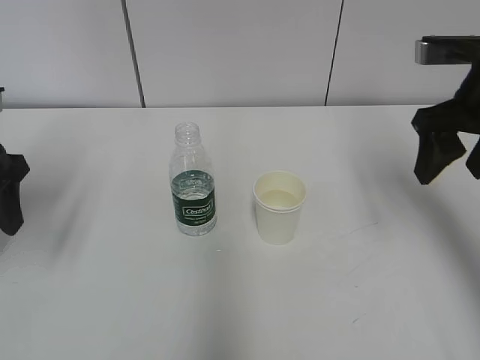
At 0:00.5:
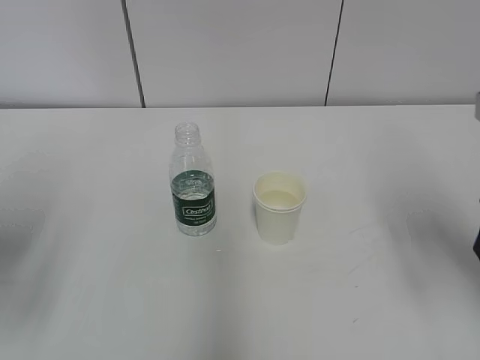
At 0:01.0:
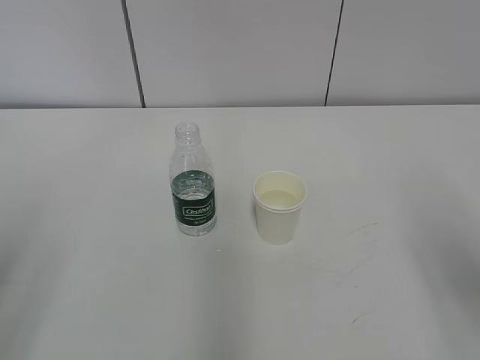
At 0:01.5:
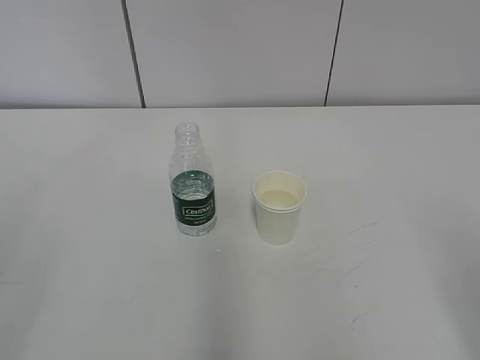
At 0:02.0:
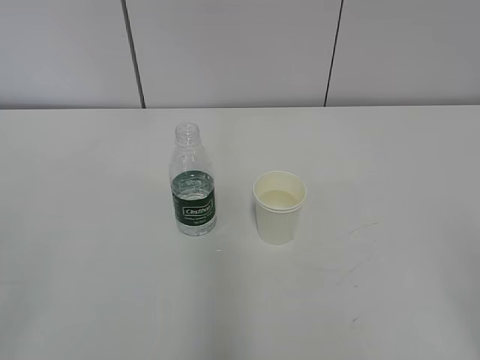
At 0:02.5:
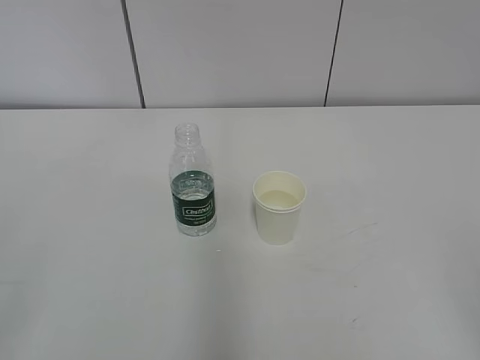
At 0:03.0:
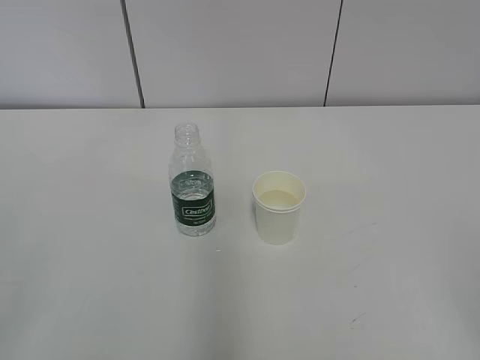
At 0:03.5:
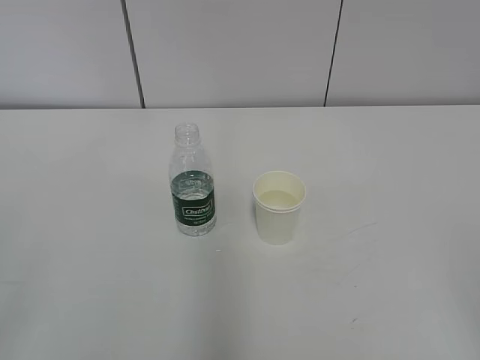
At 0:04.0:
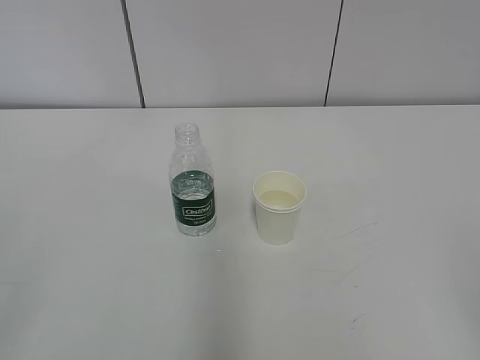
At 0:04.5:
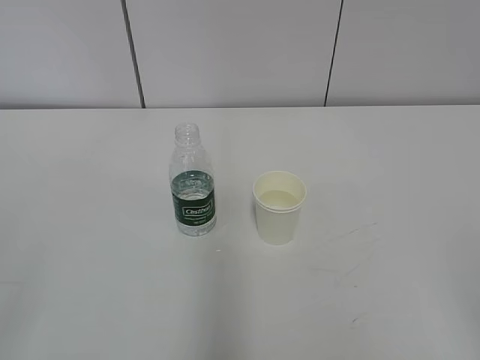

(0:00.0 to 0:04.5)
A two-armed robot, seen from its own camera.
0:00.0 - 0:02.0: Both grippers move backward, some 30 cm.

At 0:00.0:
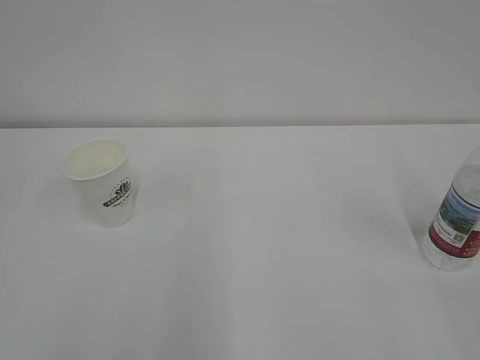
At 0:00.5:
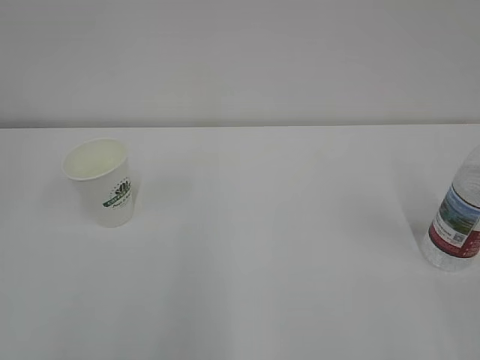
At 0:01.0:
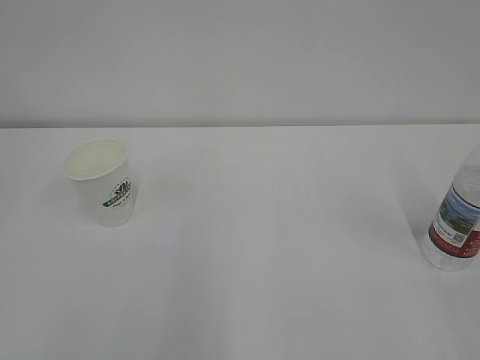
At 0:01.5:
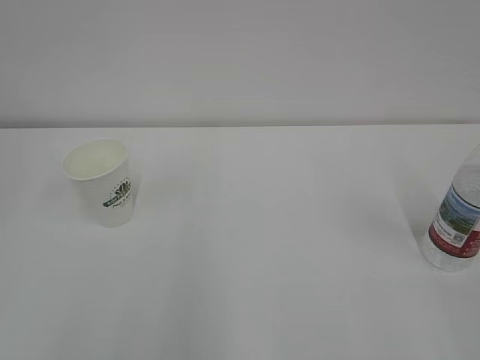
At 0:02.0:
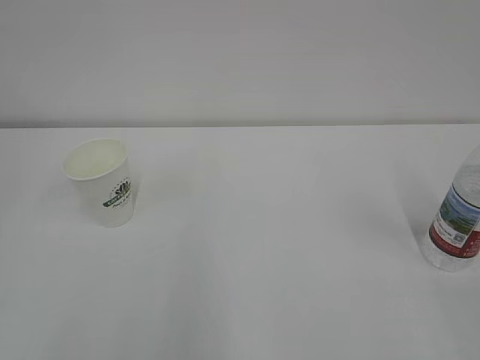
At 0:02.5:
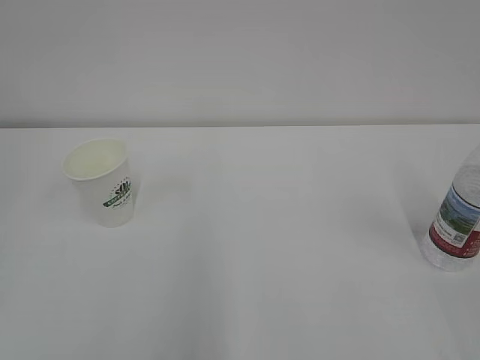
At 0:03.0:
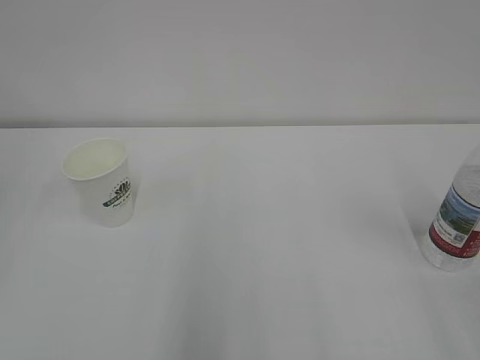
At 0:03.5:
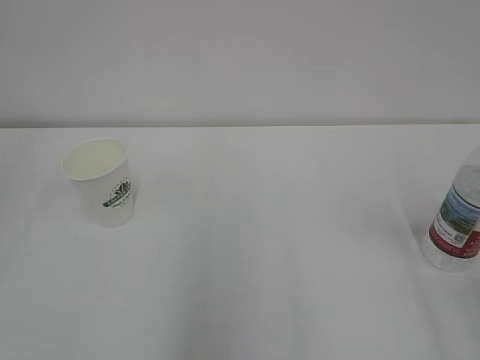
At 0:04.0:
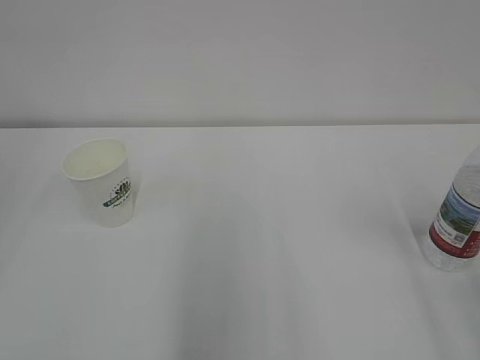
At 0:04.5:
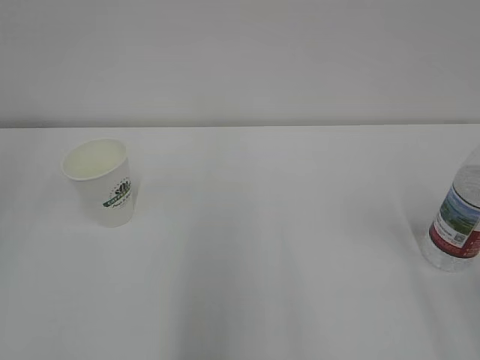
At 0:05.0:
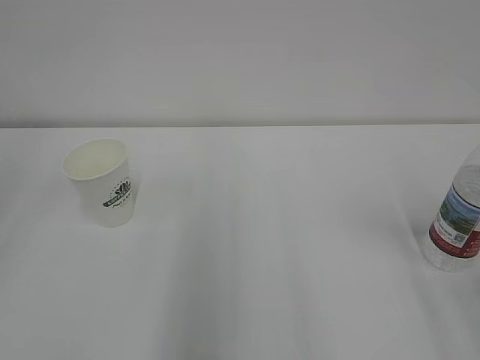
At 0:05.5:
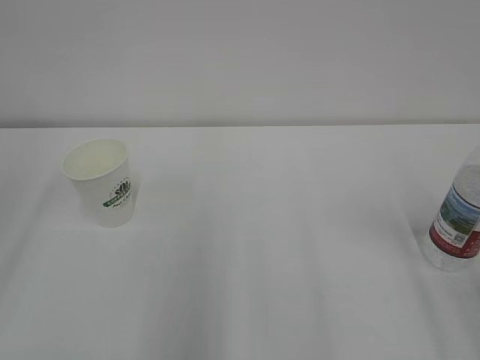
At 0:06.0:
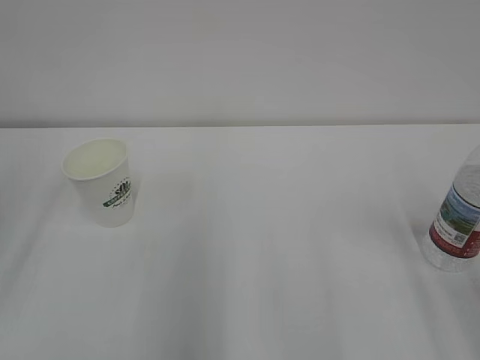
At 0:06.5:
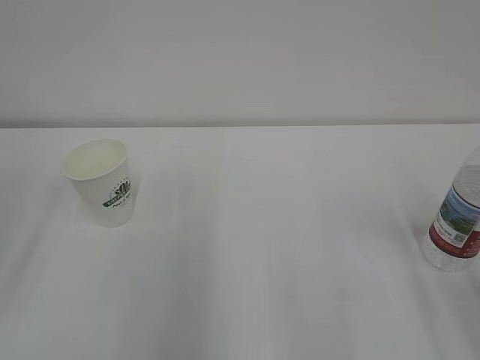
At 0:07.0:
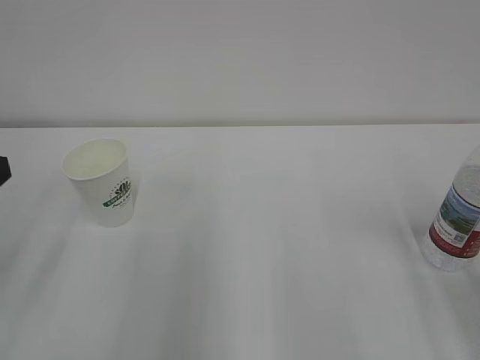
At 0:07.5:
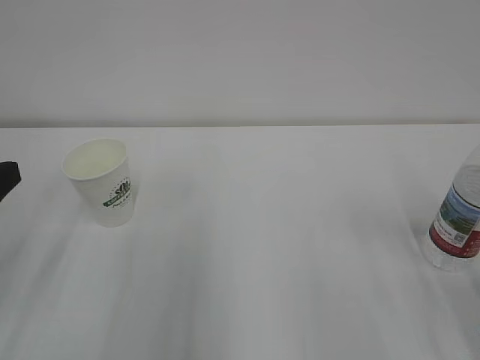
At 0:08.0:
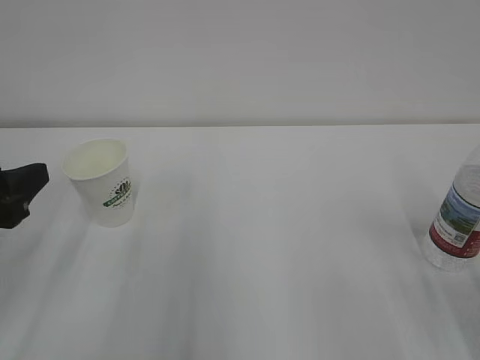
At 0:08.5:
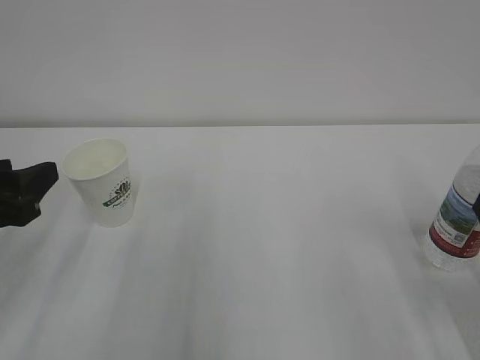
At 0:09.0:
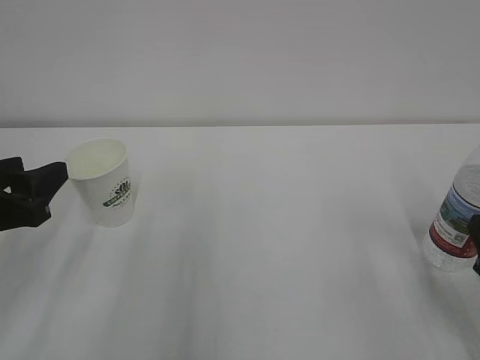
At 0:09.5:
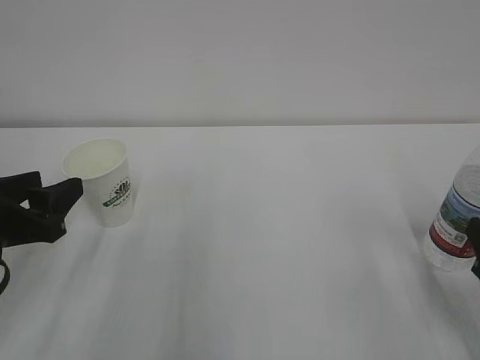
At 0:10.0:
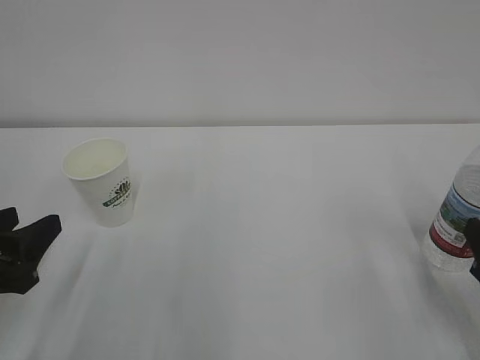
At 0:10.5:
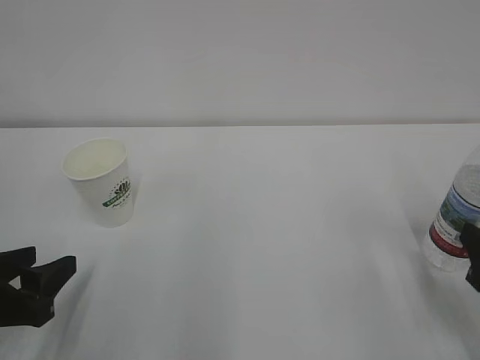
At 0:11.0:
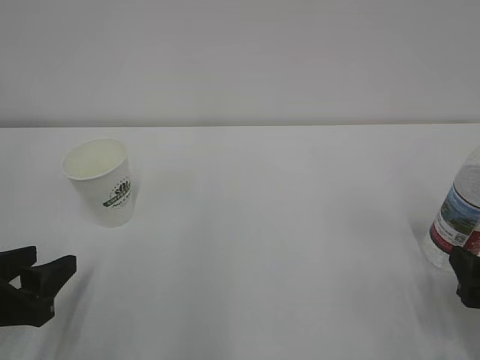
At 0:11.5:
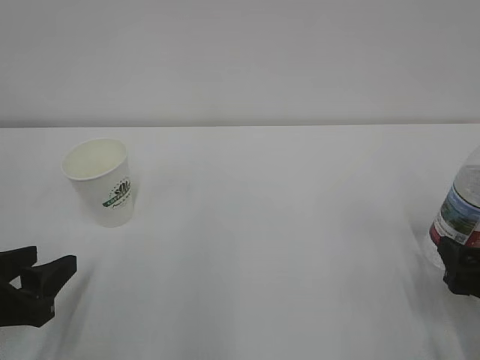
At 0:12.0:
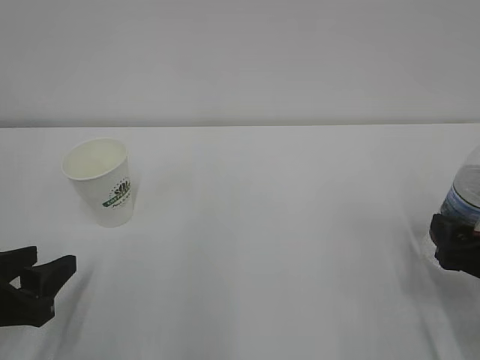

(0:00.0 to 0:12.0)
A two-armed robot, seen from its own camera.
0:06.0 - 0:08.0: The left gripper travels downward by about 10 cm.
0:08.0 - 0:10.0: The left gripper shifts about 5 cm downward.
0:10.0 - 0:12.0: The right gripper moves roughly 5 cm, and opens.

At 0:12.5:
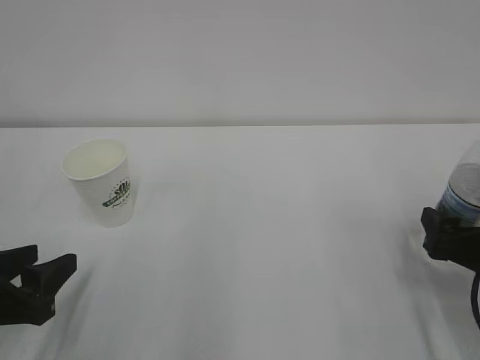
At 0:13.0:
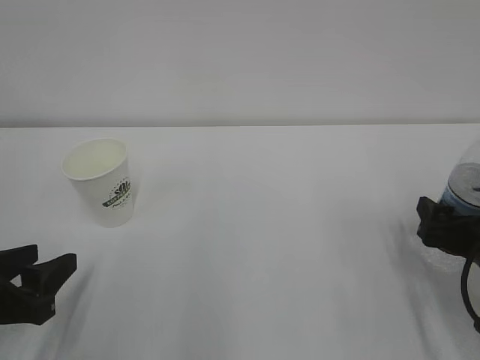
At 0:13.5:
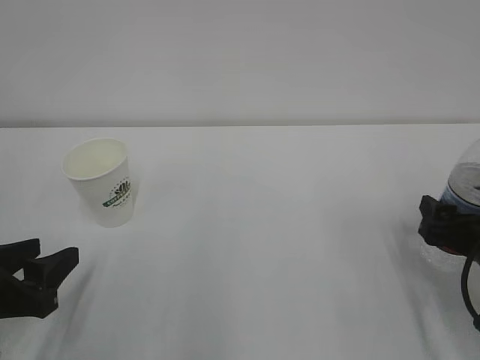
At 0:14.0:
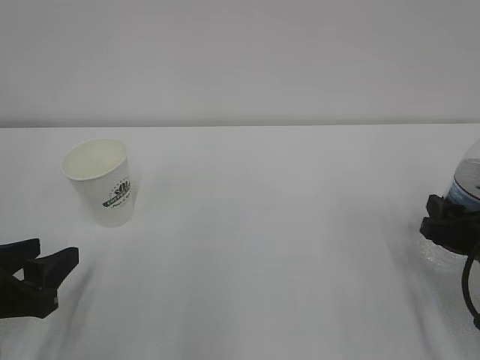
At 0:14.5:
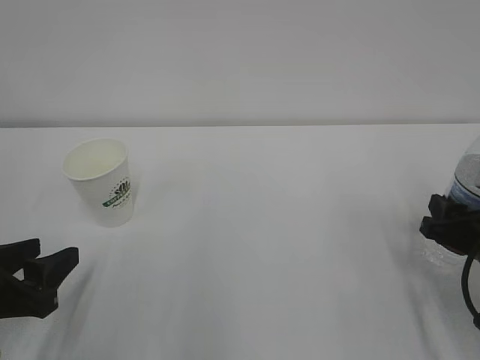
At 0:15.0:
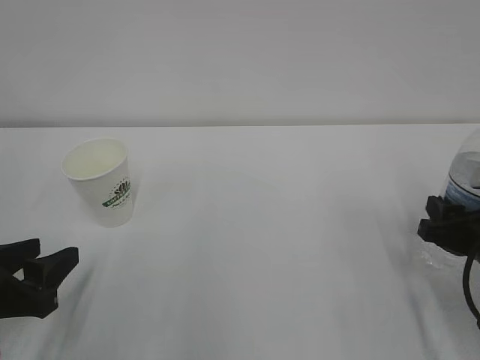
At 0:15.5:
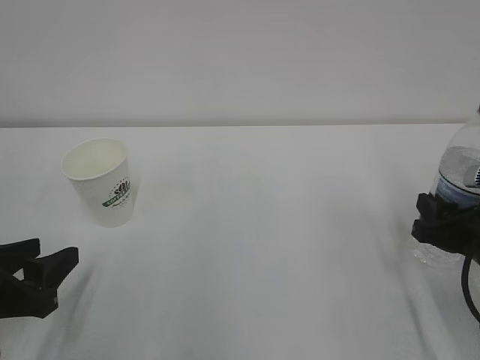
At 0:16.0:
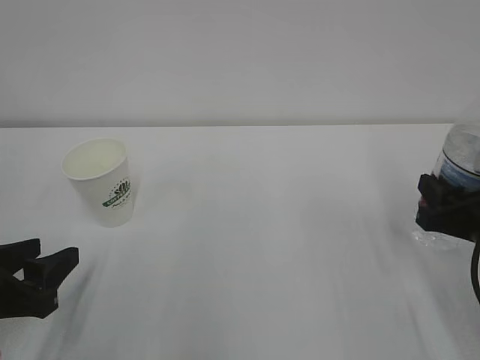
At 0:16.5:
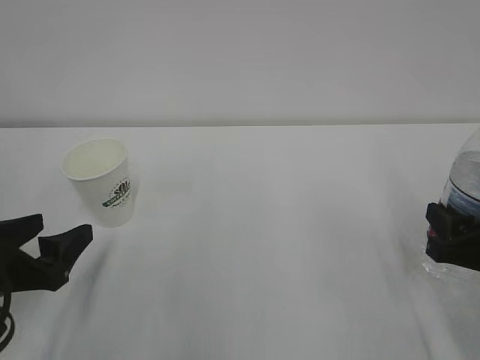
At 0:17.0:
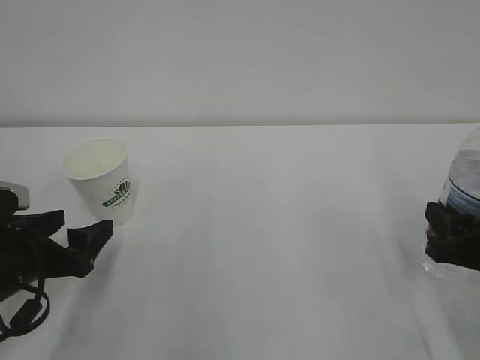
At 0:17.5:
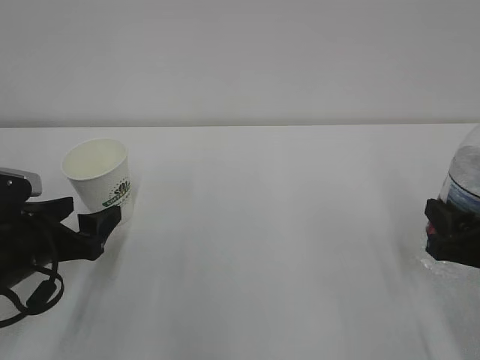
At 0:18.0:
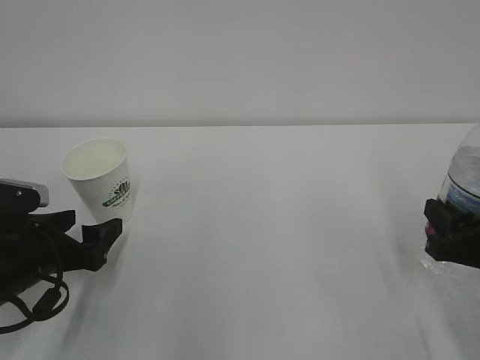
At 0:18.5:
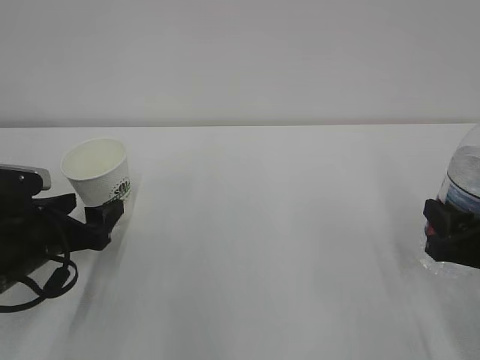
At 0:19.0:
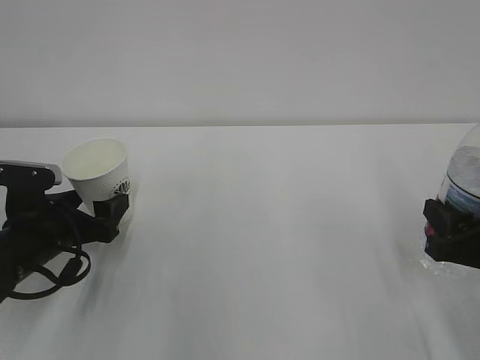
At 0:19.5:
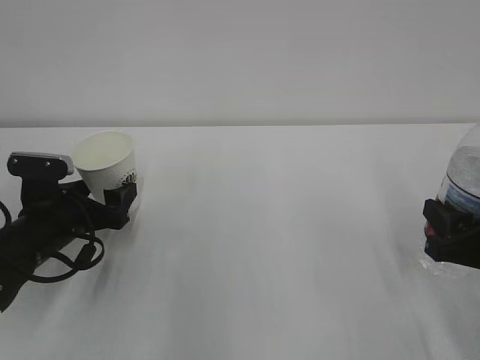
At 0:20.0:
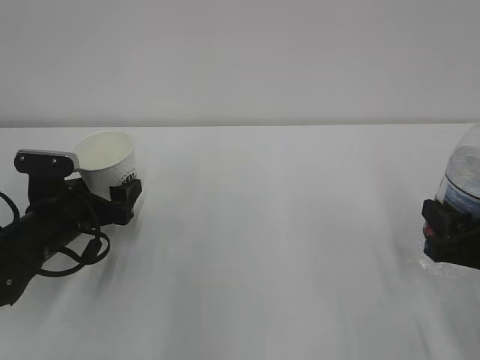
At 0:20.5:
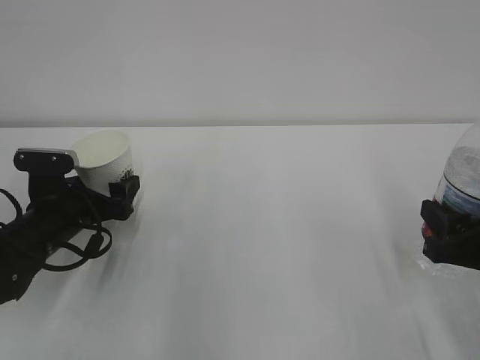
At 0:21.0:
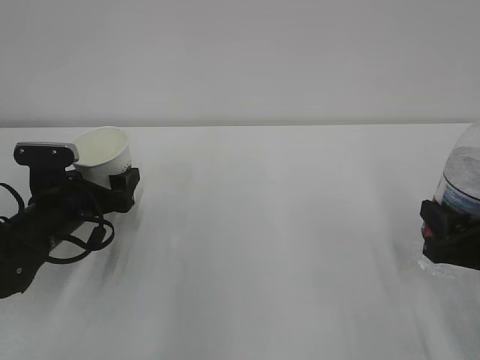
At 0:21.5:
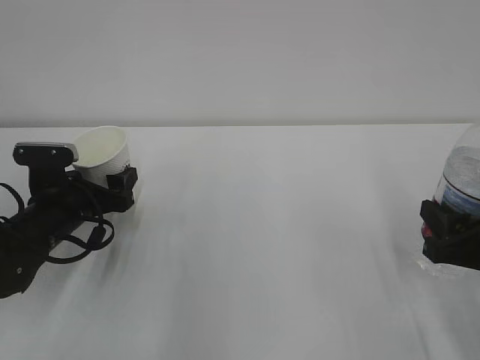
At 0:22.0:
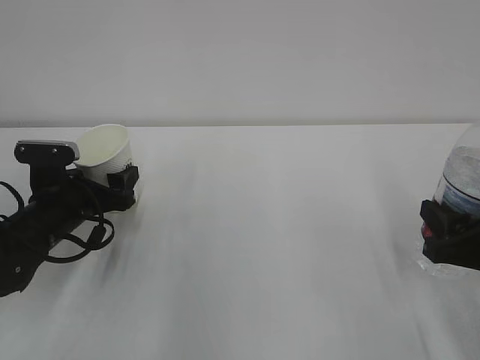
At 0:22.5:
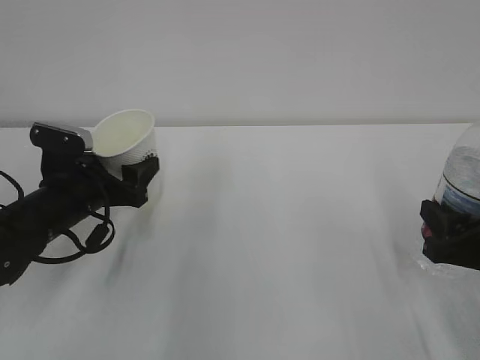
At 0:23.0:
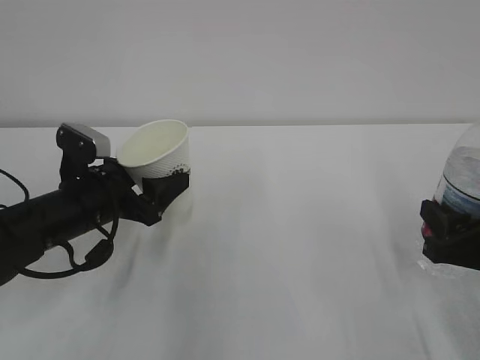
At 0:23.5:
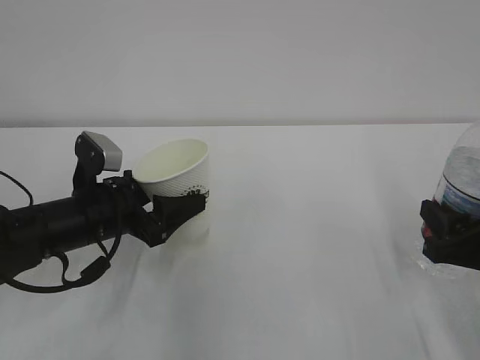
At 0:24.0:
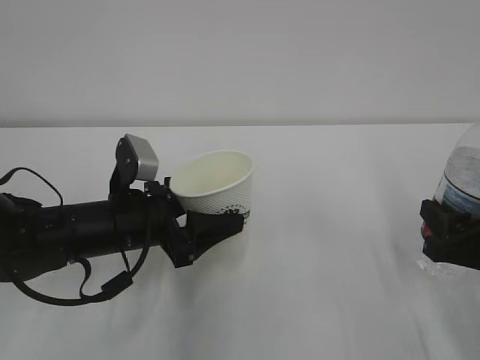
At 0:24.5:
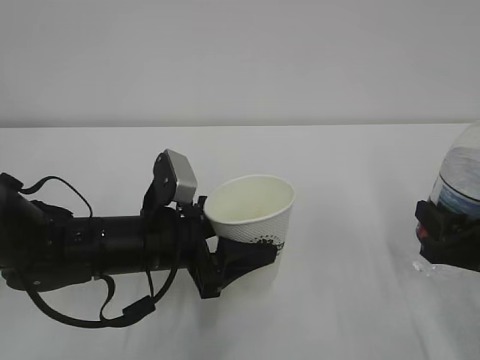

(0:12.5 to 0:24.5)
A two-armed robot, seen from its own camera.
0:12.5 - 0:14.5: The right gripper closes its fingers.
0:14.5 - 0:16.5: The left gripper opens up.
0:16.5 - 0:18.5: The left gripper heads forward, covering some 5 cm.
0:18.5 - 0:20.5: The left gripper heads forward, covering some 5 cm.
0:20.5 - 0:22.5: The left gripper closes up.
0:22.5 - 0:24.5: The left gripper shifts some 15 cm to the right and backward.
